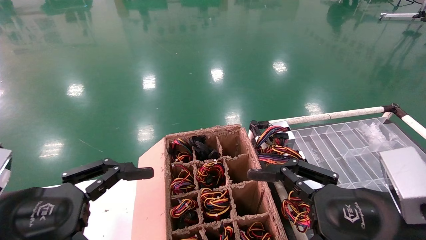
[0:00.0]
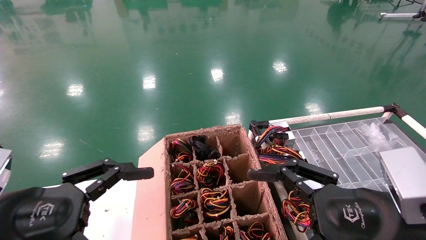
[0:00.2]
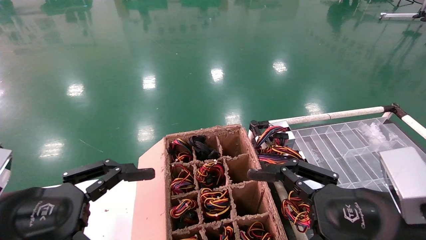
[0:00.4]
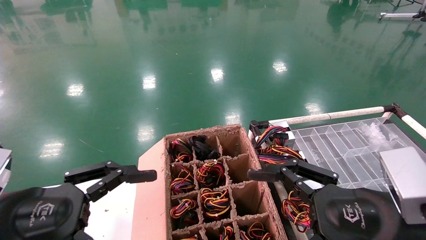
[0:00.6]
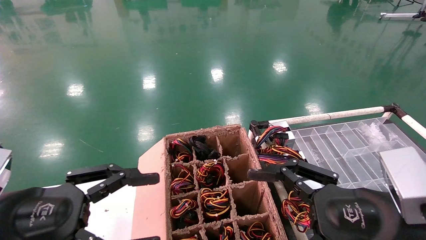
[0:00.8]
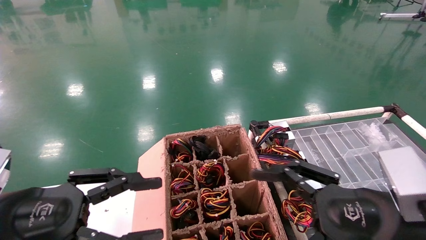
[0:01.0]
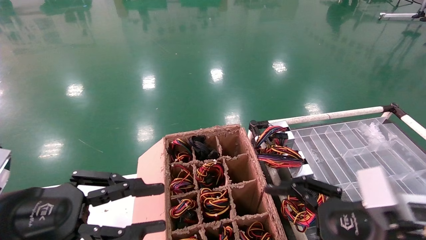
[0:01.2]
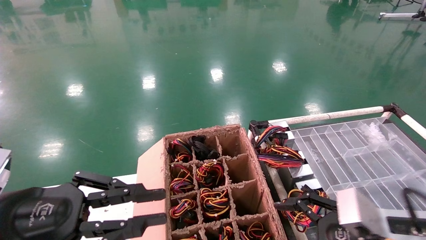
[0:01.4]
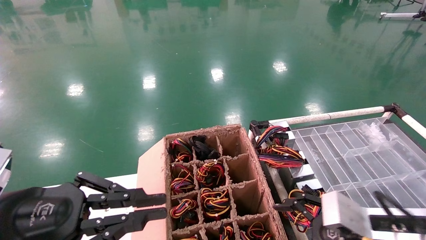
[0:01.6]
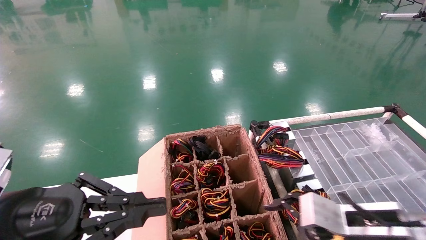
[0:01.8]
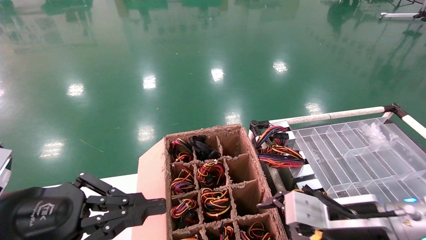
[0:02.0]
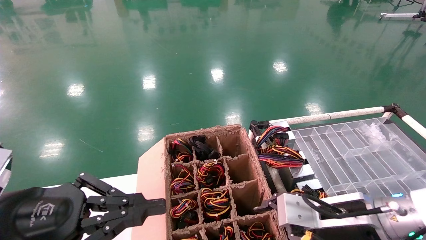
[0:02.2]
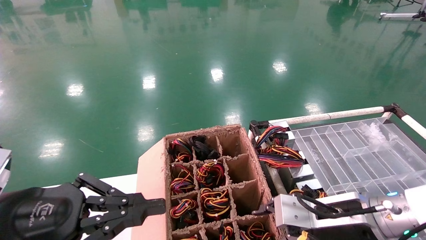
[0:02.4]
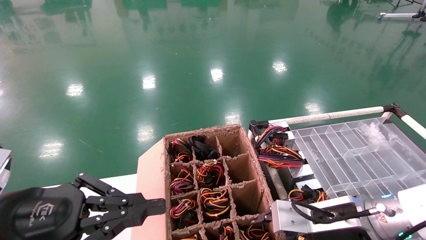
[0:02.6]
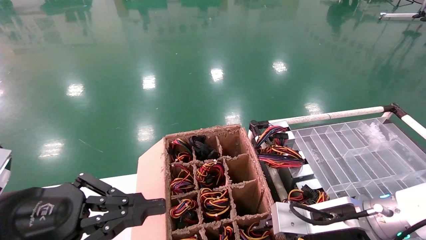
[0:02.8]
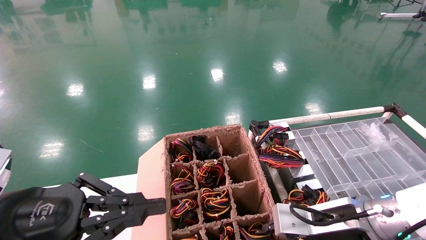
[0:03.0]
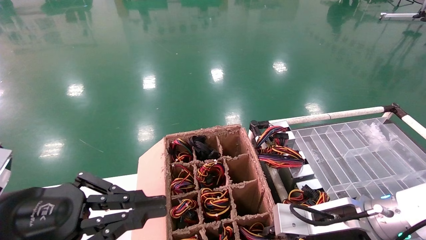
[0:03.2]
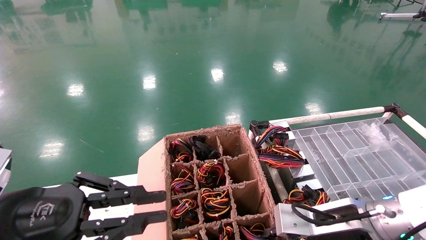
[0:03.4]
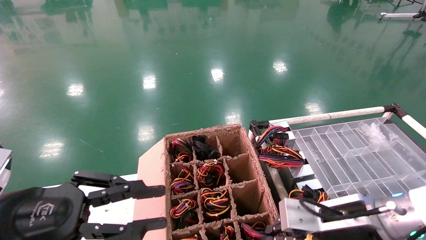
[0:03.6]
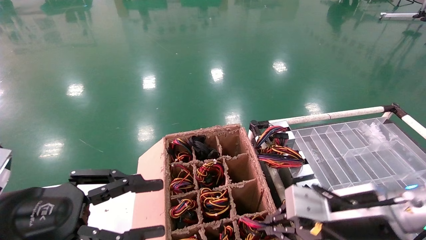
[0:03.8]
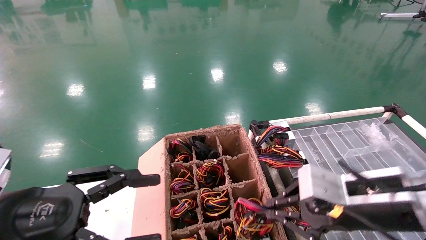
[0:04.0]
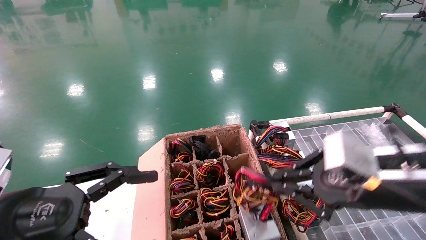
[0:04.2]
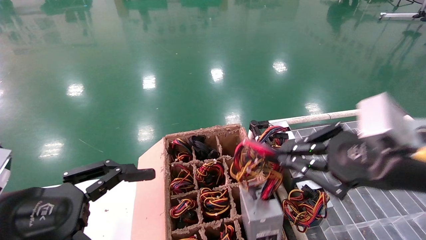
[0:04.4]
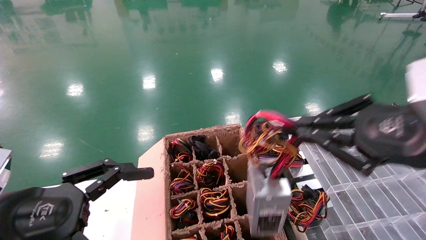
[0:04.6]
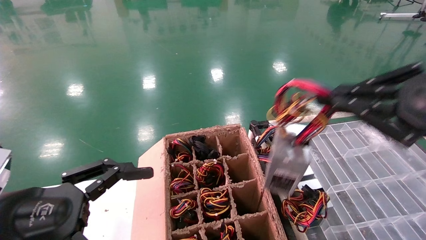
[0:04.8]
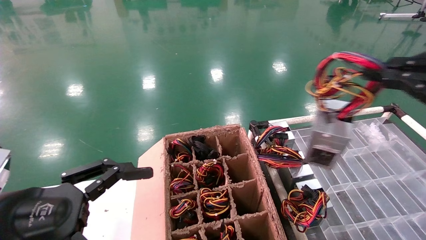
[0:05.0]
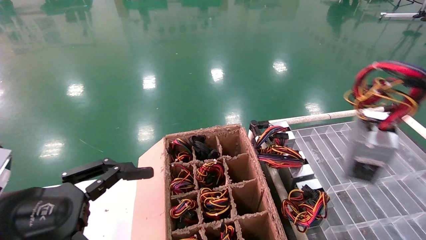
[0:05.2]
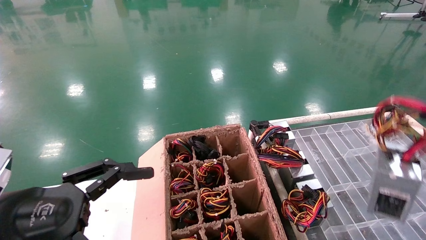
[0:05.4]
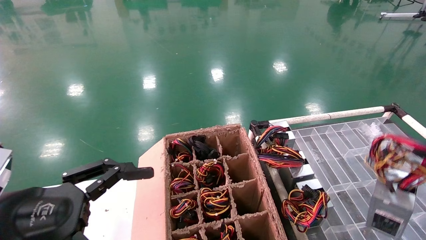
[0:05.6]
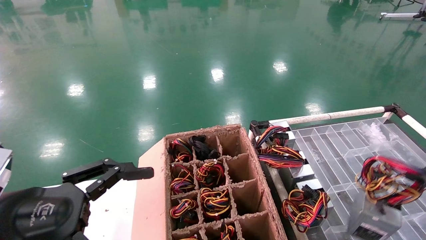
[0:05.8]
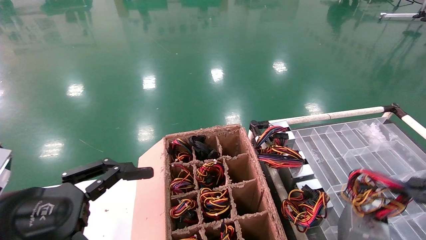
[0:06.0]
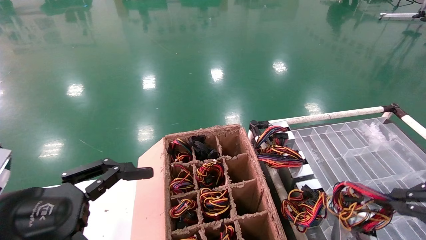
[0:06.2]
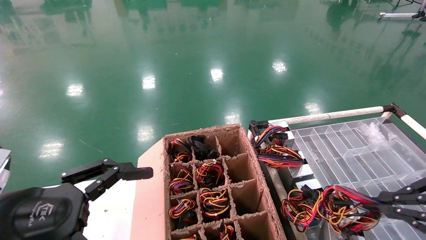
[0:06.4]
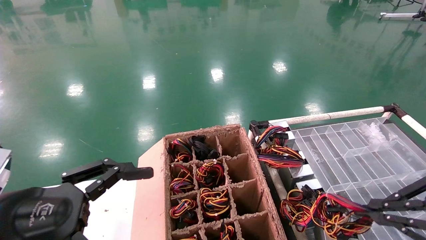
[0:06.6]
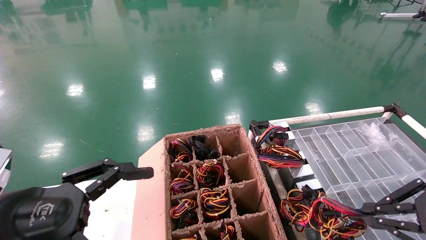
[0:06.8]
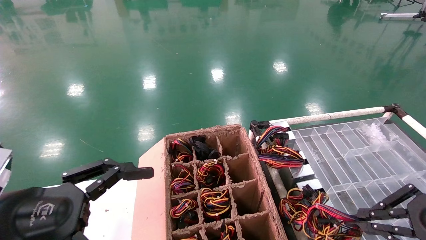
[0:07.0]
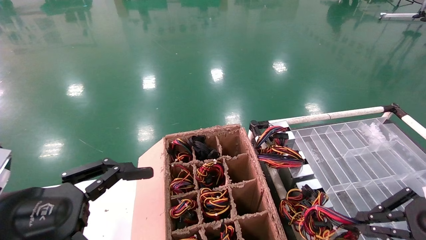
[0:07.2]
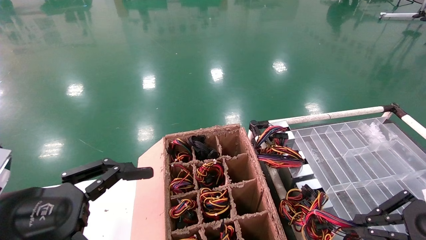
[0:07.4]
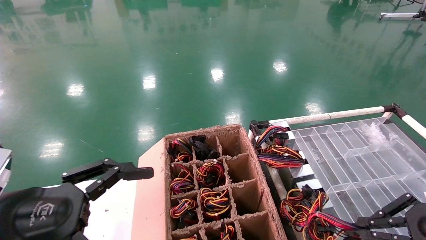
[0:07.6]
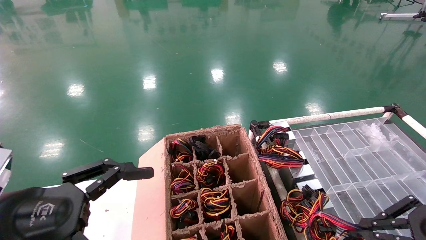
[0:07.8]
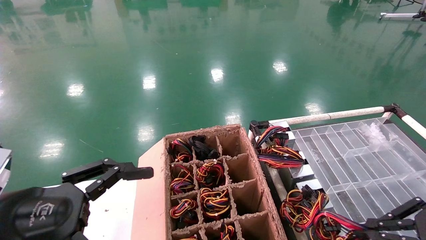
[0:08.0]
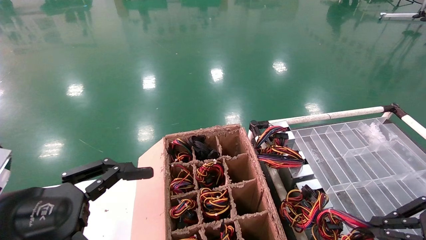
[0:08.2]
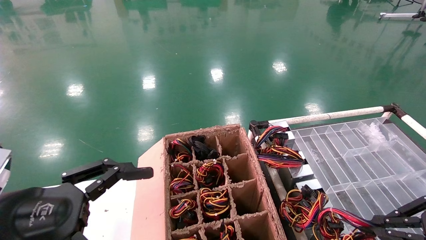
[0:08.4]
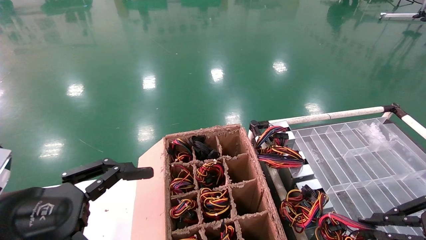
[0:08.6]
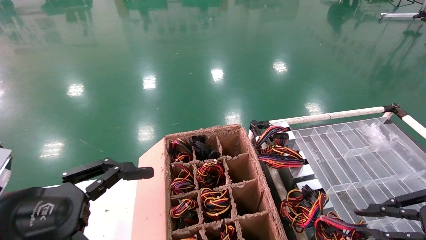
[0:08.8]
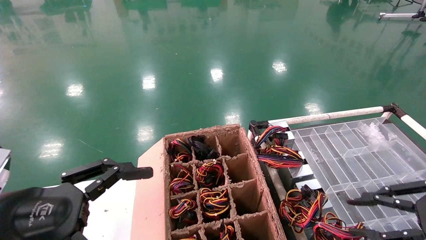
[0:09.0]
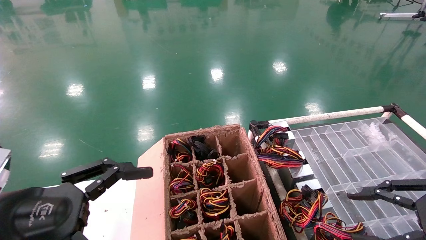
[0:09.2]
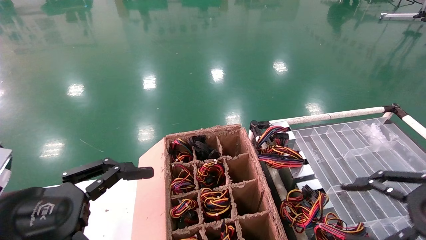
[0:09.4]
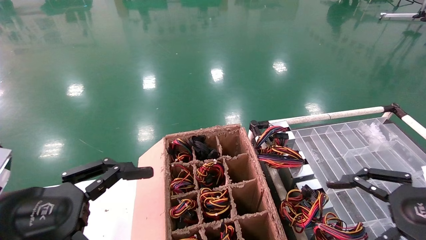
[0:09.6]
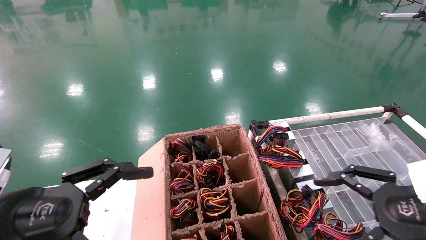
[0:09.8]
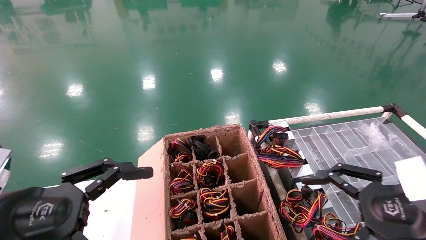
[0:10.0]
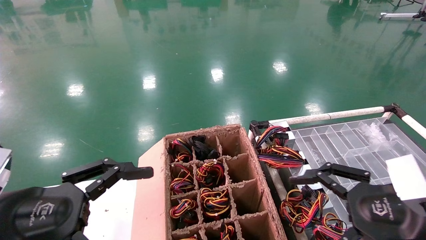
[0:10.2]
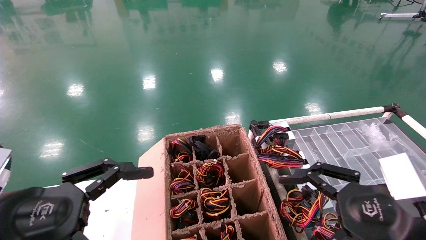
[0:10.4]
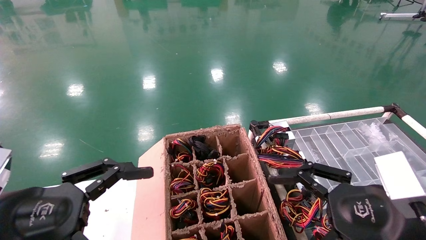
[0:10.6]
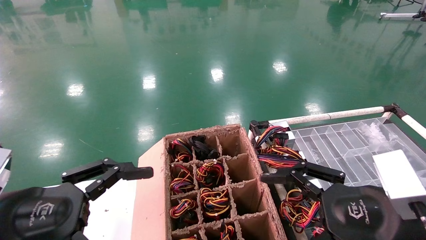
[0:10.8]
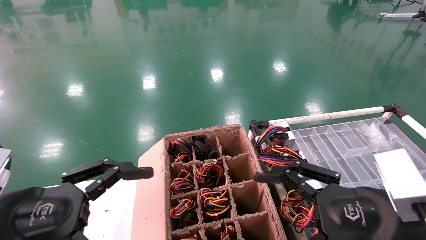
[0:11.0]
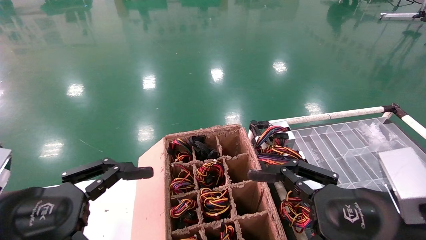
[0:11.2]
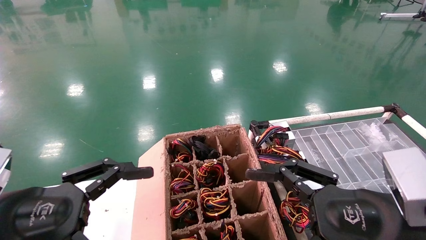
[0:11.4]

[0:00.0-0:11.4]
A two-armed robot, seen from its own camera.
Step, 0:02.0 to 0:03.6: Grab and lift the power supply from the large box.
Step, 0:03.8 to 0:08.6: Place the power supply on the operating table.
0:00.0 to 0:01.4: The left gripper closes its fingers, while the right gripper shifts by approximately 5 cm.
0:01.4 to 0:02.8: The right gripper heads forward, covering roughly 5 cm, and closes its fingers.
0:02.8 to 0:04.2: The left gripper opens up, while the right gripper travels upward and backward by about 10 cm, and closes its fingers.
0:04.2 to 0:05.6: The right gripper moves to the right and backward, some 20 cm.
0:05.6 to 0:07.2: The right gripper moves downward and to the left, about 10 cm.
0:07.2 to 0:08.6: The grippers stay close to where they were, moving slightly.
0:08.6 to 0:10.0: The right gripper travels to the left by about 10 cm, and opens up.
0:10.0 to 0:11.4: The right gripper is displaced to the left by about 10 cm.
